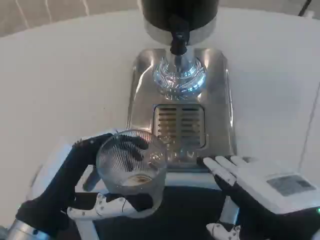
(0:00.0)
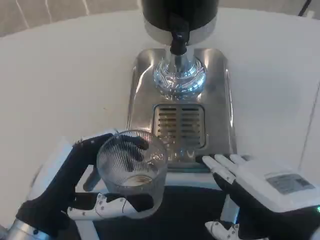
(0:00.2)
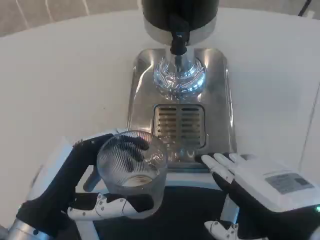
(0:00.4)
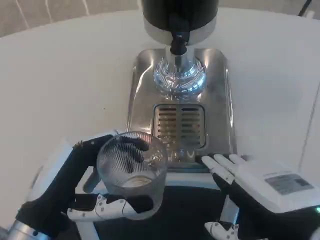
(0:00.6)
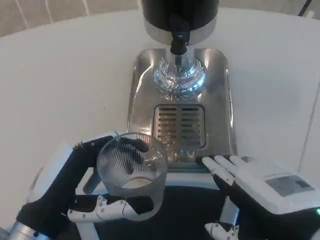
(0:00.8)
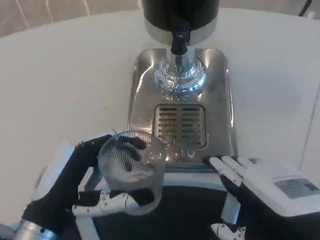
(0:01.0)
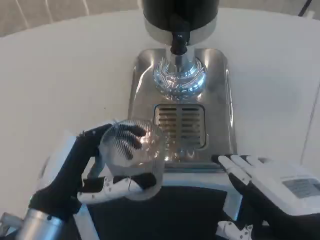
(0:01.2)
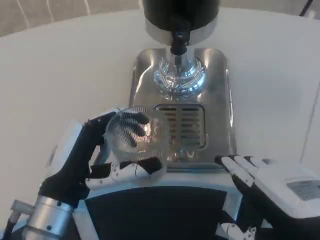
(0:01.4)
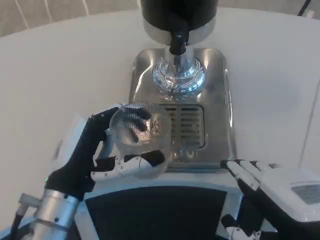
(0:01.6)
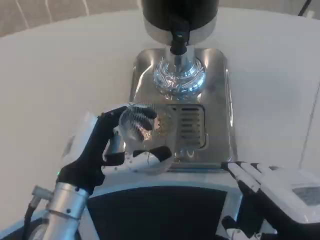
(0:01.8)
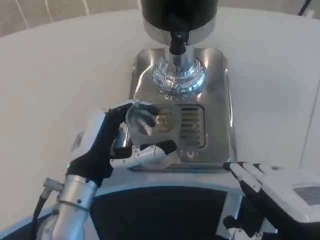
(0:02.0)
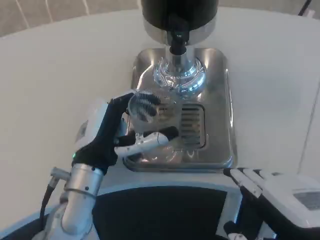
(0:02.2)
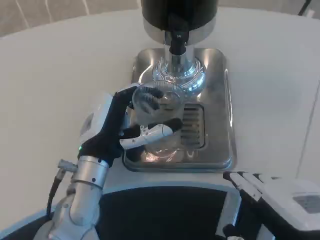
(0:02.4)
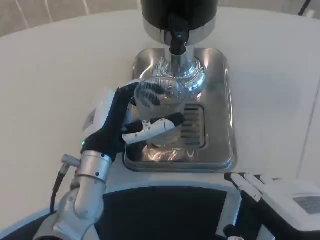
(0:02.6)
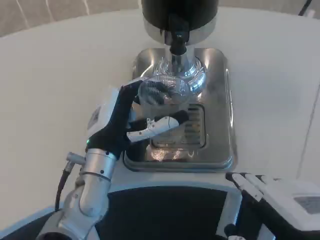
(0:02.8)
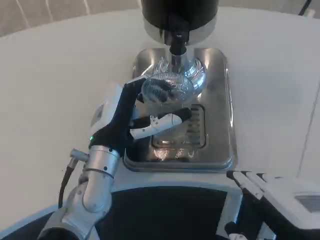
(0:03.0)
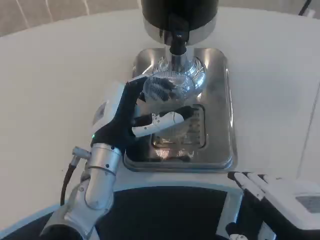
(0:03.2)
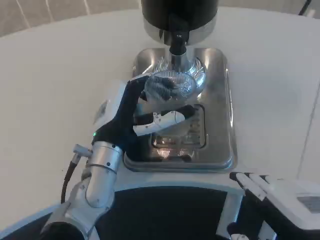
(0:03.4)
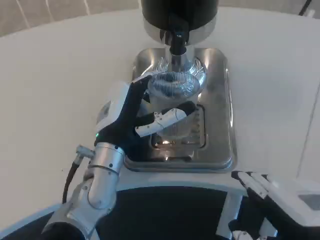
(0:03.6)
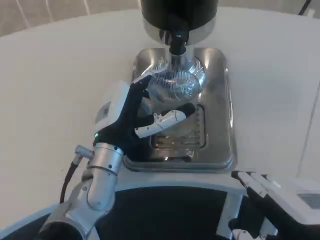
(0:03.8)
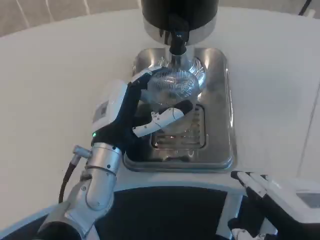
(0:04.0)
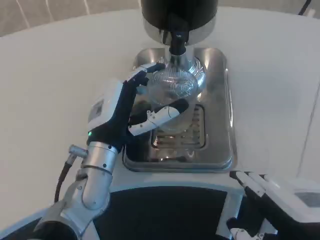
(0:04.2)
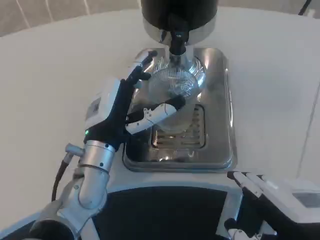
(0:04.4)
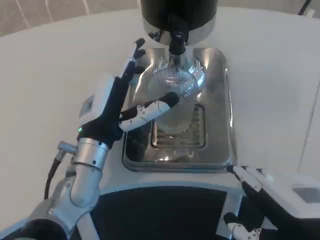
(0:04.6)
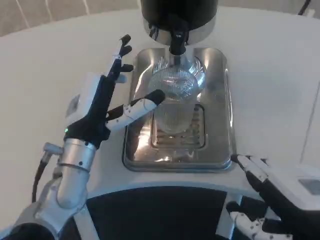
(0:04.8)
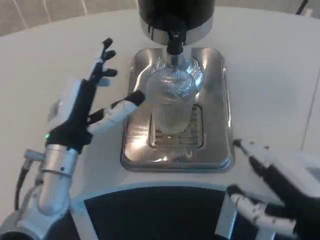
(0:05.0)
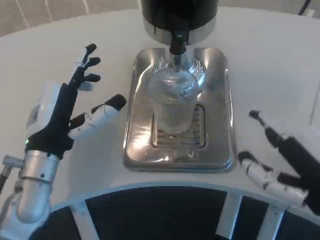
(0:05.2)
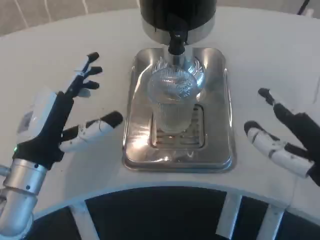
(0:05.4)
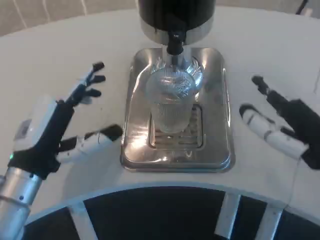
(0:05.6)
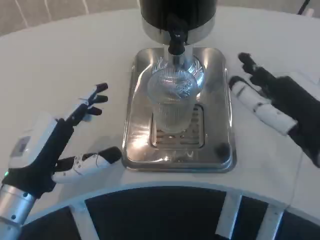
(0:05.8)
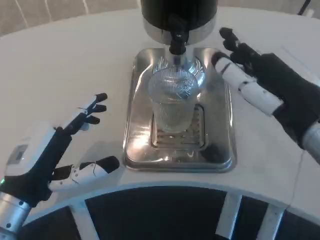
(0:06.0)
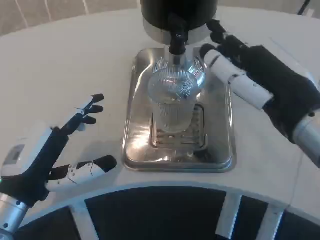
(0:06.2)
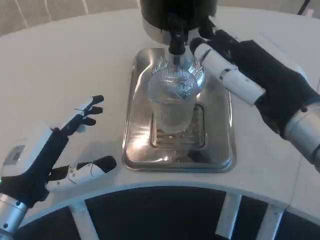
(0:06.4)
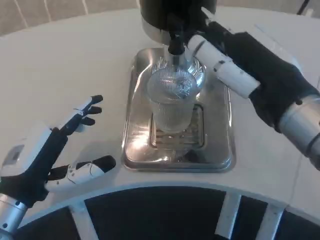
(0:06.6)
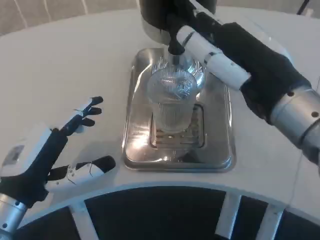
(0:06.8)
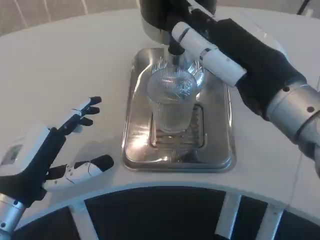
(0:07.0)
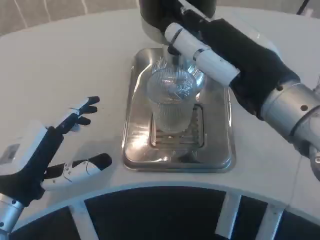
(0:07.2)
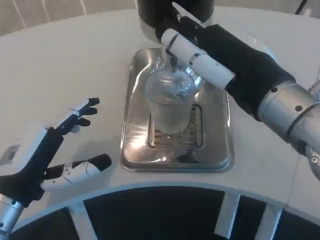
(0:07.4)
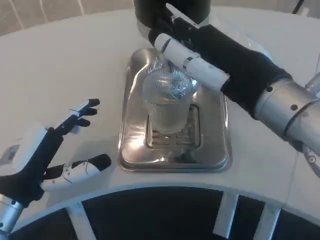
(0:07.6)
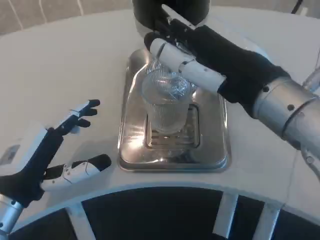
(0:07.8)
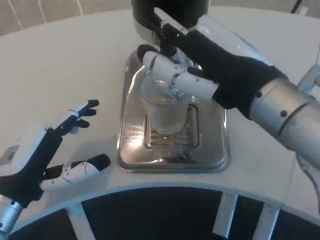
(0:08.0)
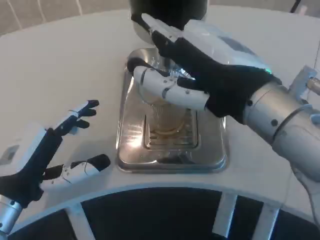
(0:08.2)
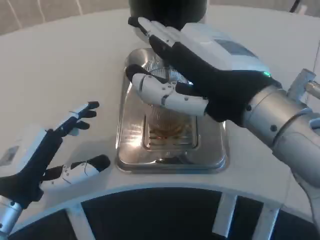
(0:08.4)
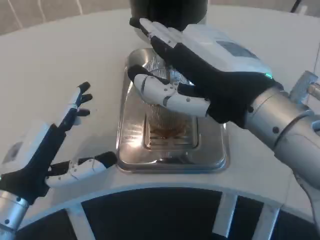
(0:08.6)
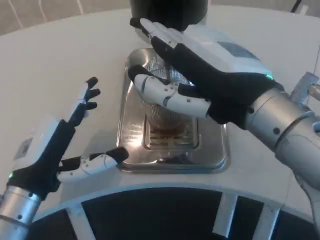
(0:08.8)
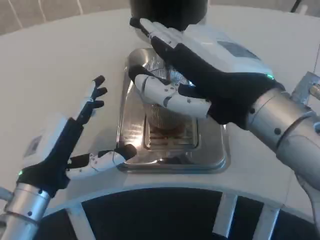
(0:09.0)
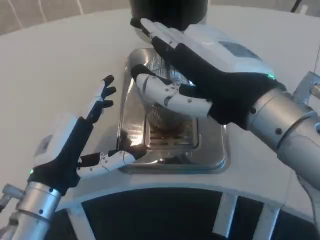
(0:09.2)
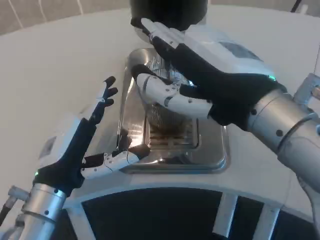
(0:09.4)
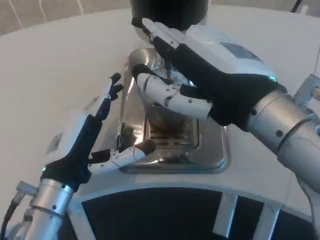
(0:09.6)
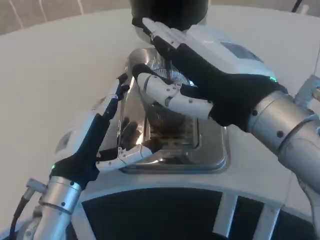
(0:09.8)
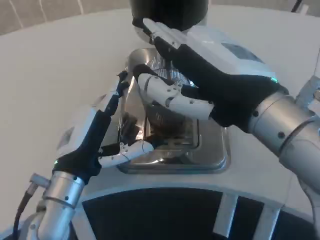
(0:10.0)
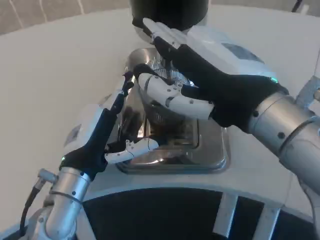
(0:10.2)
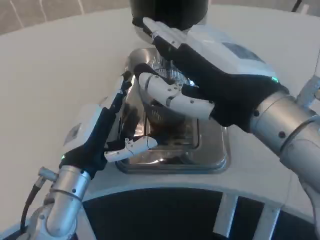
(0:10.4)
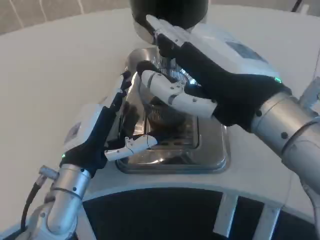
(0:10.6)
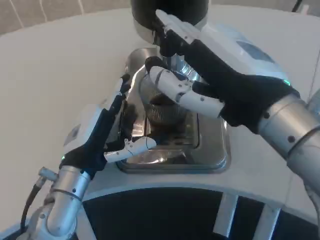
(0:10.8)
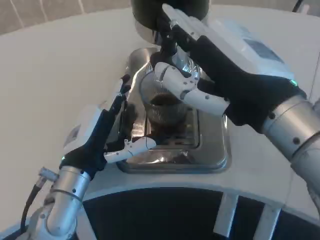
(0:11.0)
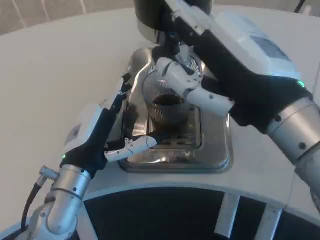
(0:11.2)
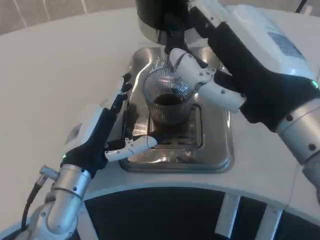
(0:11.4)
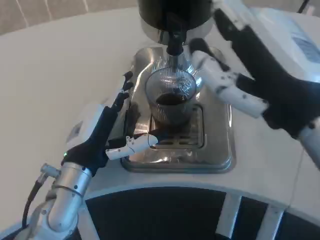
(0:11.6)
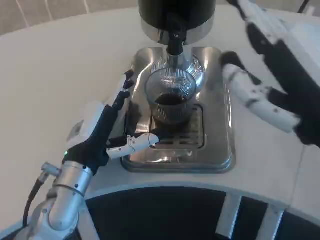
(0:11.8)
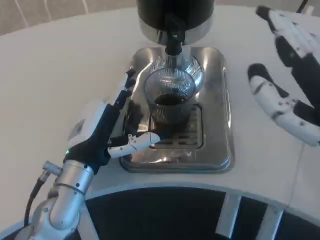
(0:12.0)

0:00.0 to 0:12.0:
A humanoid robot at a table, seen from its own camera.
Task of the whole recording: Grasp the cup under the faucet to collect the drink, then remove the cup.
0:00.0 to 0:01.6: The left hand shifts roughly 5 cm forward.
0:01.6 to 0:03.0: The left hand travels forward and to the right by approximately 10 cm.
0:03.0 to 0:04.4: The hands stay close to where they were, moving slightly.
0:04.4 to 0:06.0: The left hand goes roughly 15 cm to the left and backward. Meanwhile the right hand heads forward and upward, covering about 10 cm.
0:06.0 to 0:07.6: The right hand moves about 5 cm.
0:09.0 to 0:10.4: The left hand moves approximately 5 cm.
0:10.4 to 0:12.0: The right hand is displaced to the right and backward by about 10 cm.

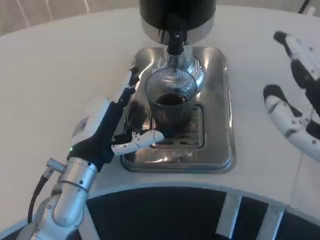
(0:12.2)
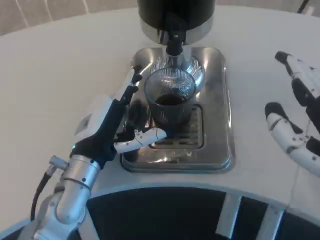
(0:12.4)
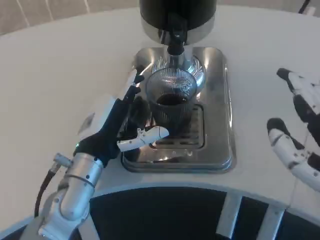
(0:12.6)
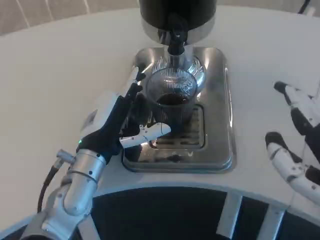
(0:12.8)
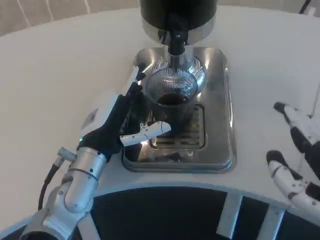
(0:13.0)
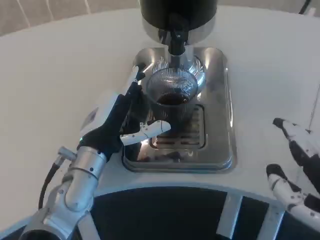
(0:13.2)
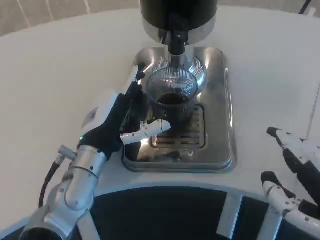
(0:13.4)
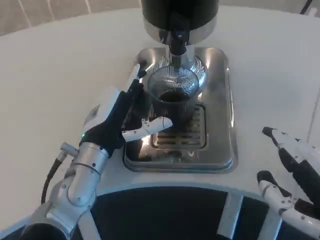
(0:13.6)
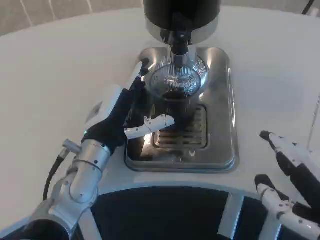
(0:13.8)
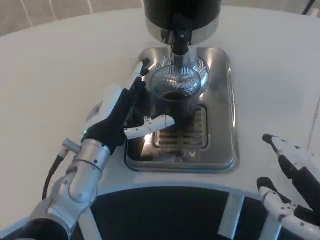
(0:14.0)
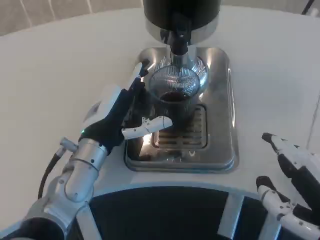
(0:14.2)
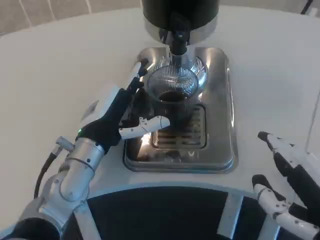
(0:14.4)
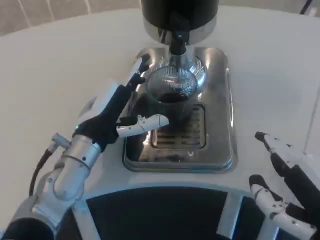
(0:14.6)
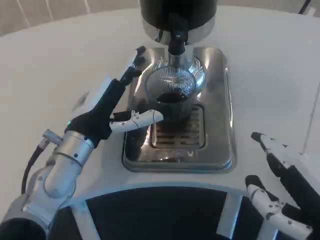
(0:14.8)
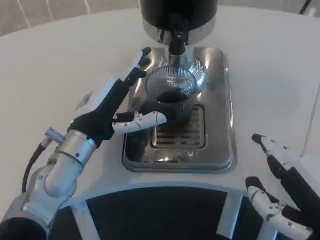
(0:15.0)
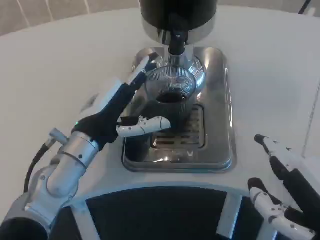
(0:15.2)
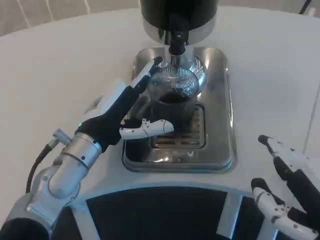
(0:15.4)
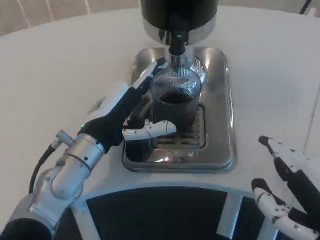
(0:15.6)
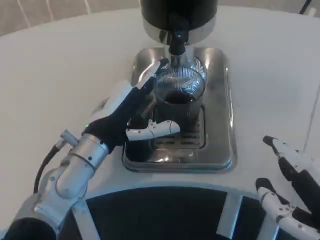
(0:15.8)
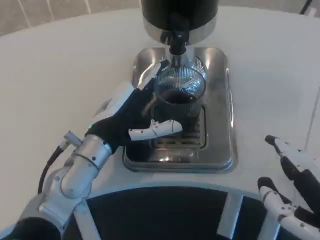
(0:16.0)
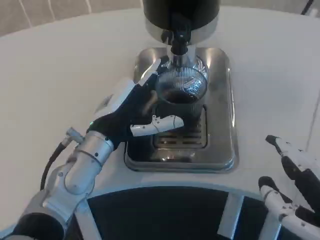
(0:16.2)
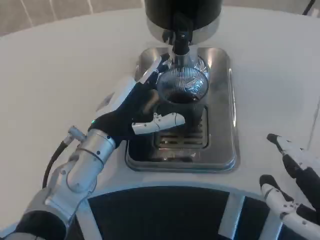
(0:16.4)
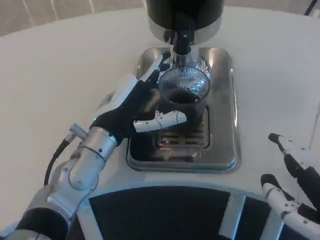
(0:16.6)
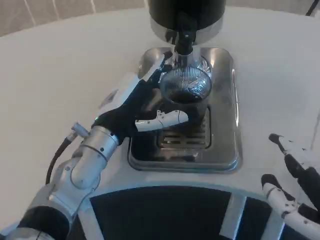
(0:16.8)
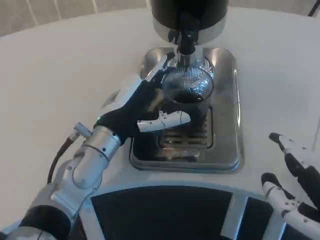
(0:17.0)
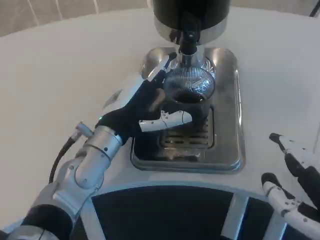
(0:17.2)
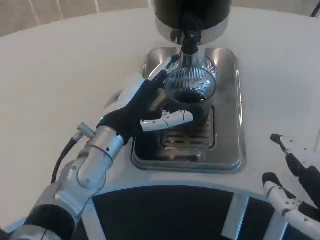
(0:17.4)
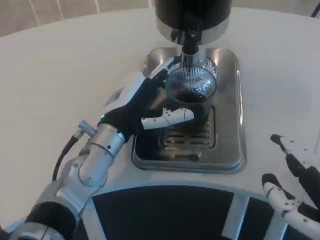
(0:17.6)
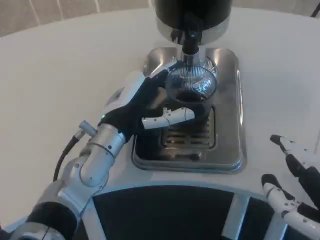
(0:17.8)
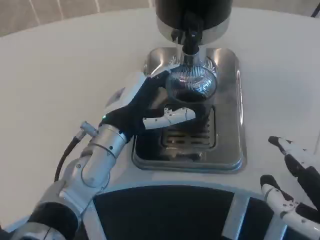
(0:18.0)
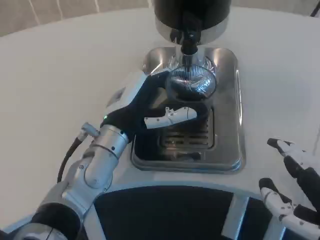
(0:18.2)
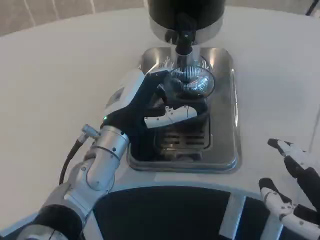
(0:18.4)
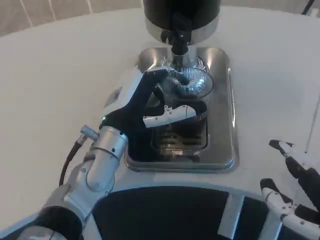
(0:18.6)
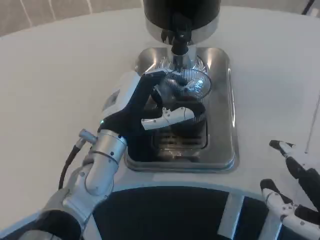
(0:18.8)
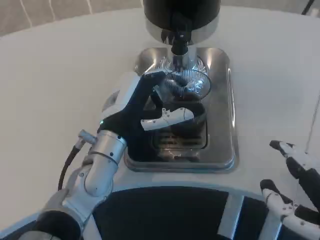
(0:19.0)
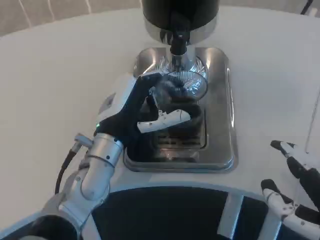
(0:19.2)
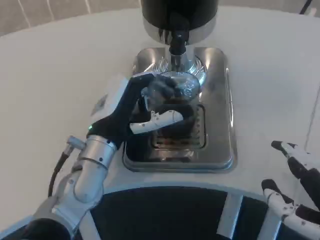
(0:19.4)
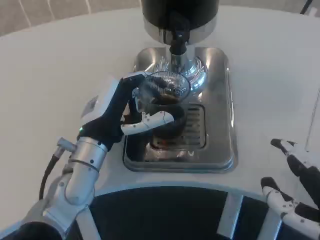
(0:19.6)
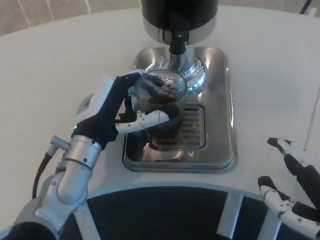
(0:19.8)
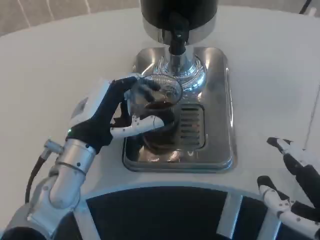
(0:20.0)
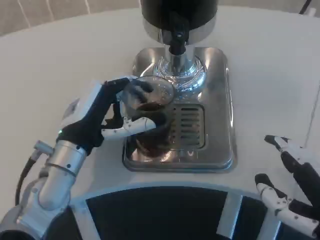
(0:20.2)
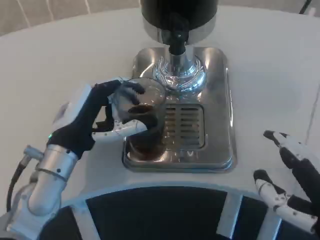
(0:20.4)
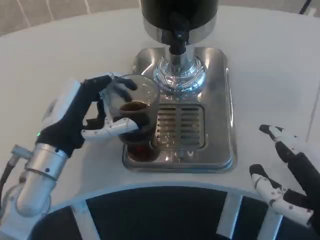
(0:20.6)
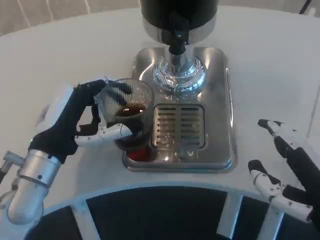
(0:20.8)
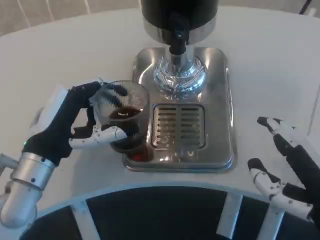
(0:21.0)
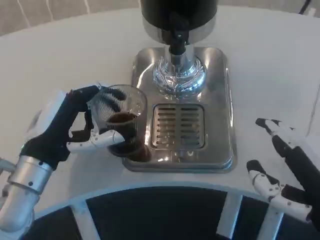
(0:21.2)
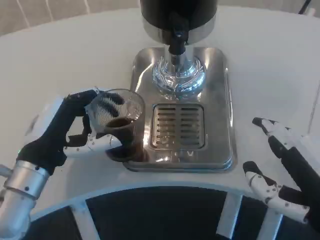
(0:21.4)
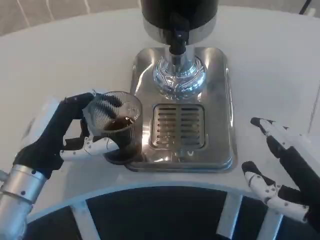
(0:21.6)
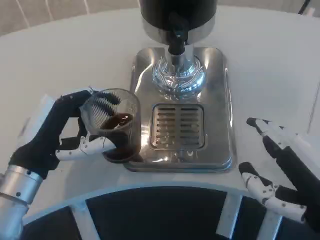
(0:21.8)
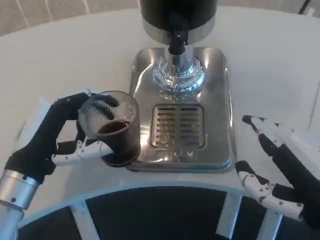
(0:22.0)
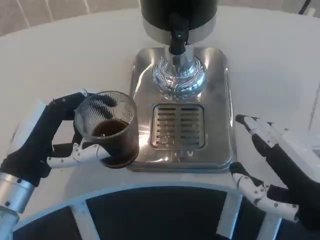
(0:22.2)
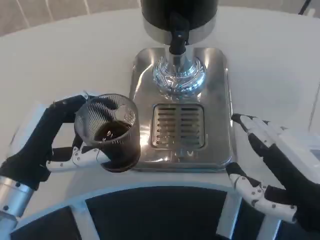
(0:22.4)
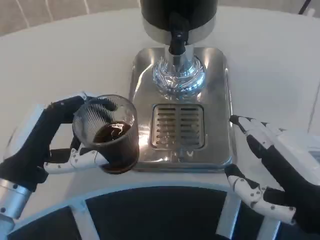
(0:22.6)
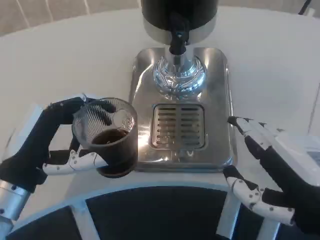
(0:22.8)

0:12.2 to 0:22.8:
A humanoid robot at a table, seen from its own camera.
Task of the whole recording: Grasp the cup under the faucet to collect the drink, then remove the cup.
0:13.8 to 0:15.2: The hands stay close to where they were, moving slightly.
0:16.8 to 0:18.2: The hands move only a little.
0:19.8 to 0:21.2: The left hand moves to the left, roughly 5 cm.
0:21.2 to 0:22.8: The hands make only small movements.
